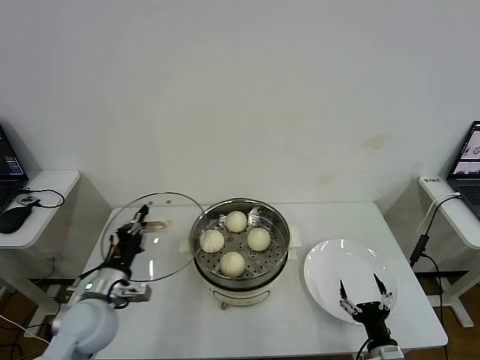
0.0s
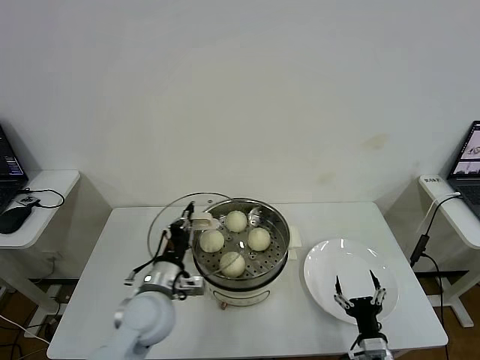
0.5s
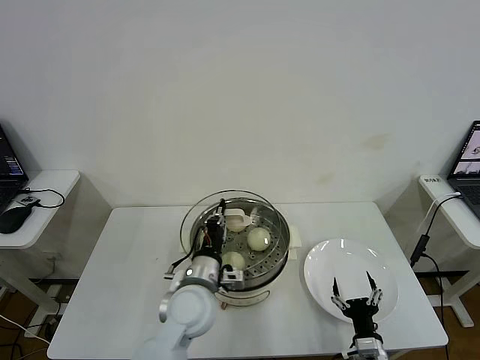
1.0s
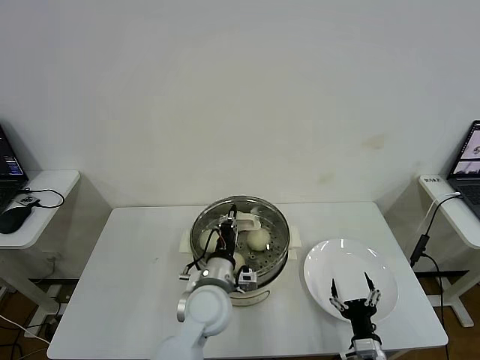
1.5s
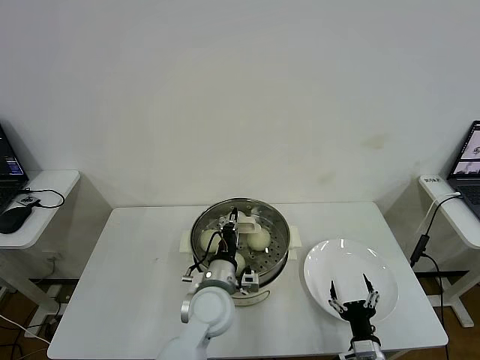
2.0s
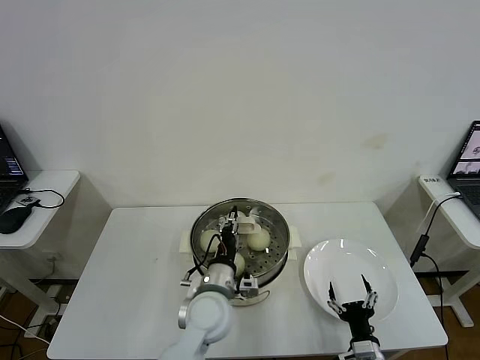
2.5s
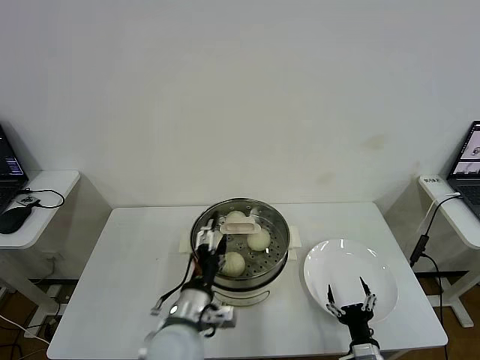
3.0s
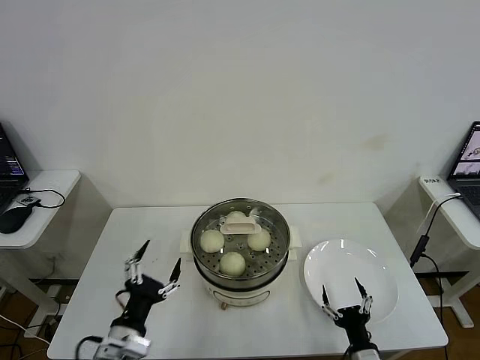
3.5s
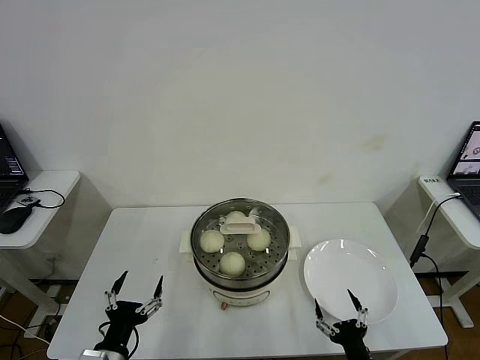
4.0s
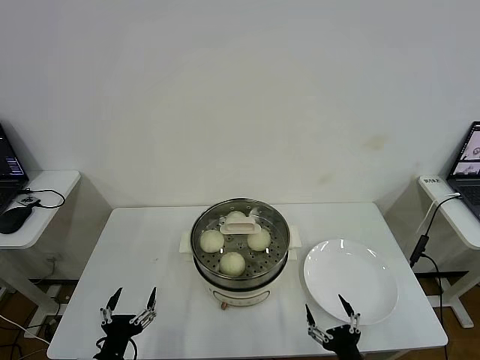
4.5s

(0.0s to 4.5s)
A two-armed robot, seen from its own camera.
Step, 0.0s - 2.5s: Place the baozi on the steamer with right gripper.
0.0s - 2.0s: The left gripper is displaced to the right by roughly 25 cm.
2.0s - 4.5s: The left gripper shifts about 30 cm to the left and backward, and opens up. Meanwhile the right gripper heads backward, covering roughly 5 cm.

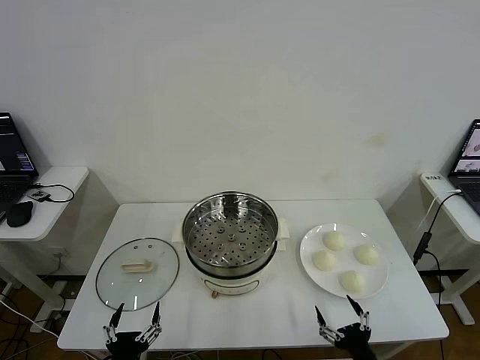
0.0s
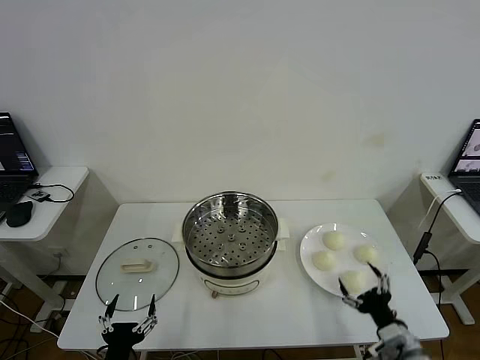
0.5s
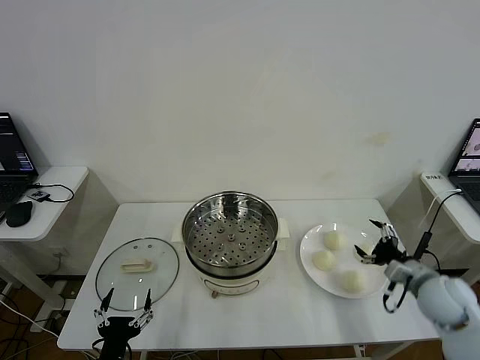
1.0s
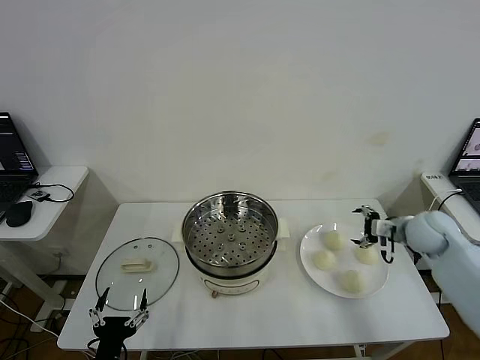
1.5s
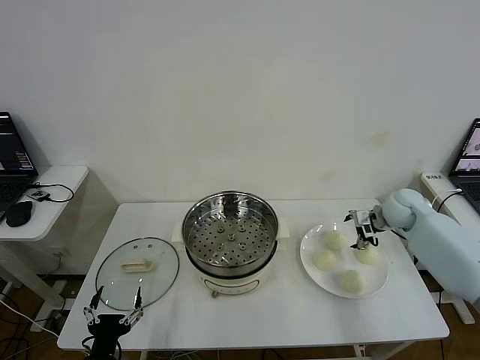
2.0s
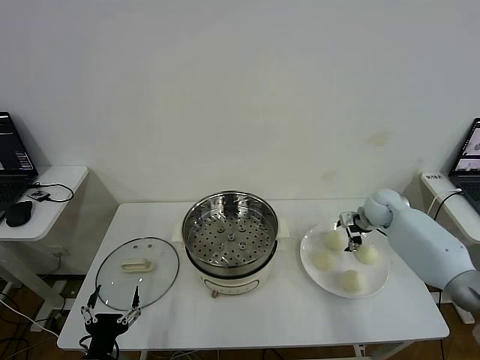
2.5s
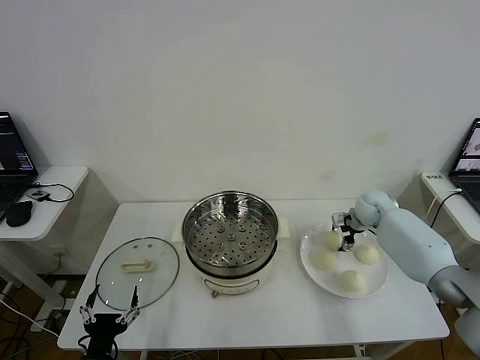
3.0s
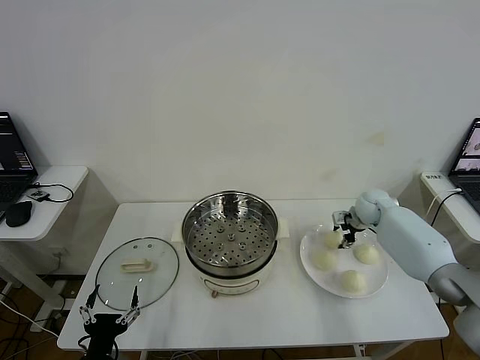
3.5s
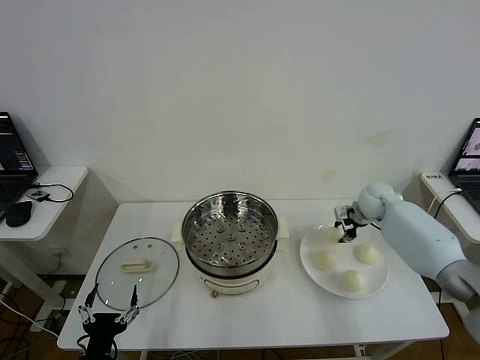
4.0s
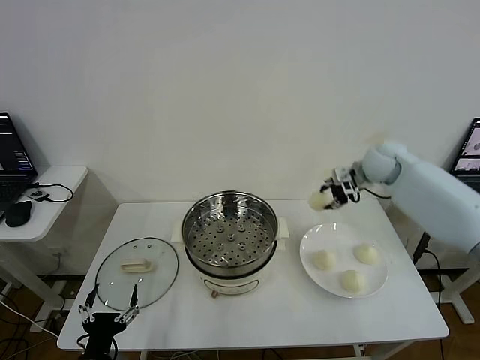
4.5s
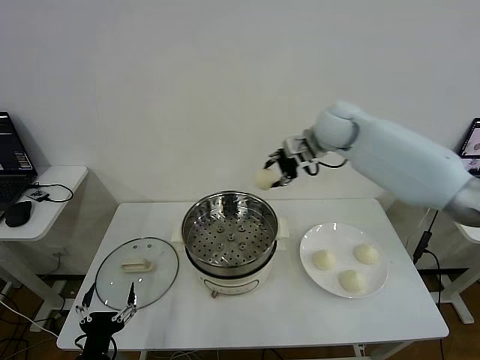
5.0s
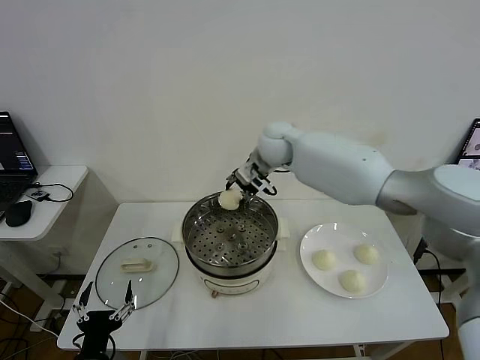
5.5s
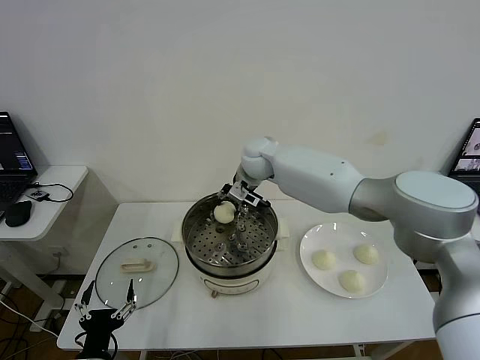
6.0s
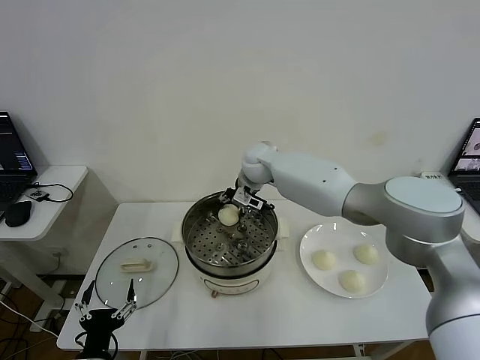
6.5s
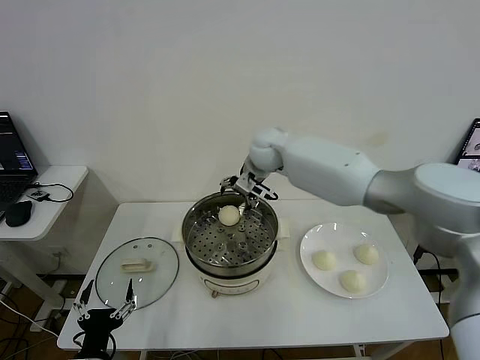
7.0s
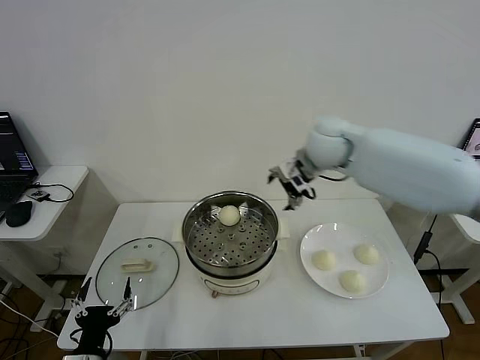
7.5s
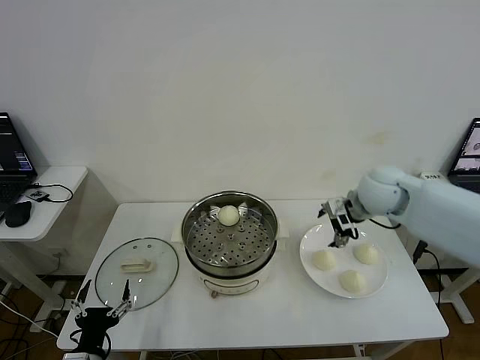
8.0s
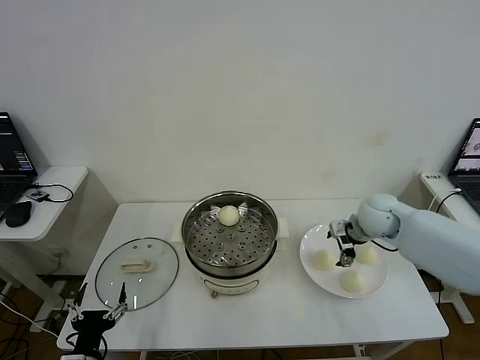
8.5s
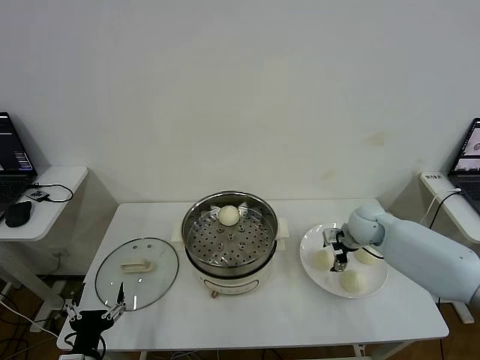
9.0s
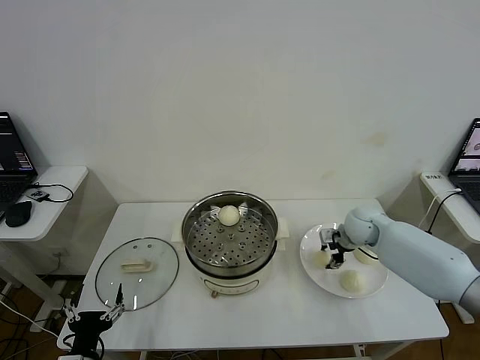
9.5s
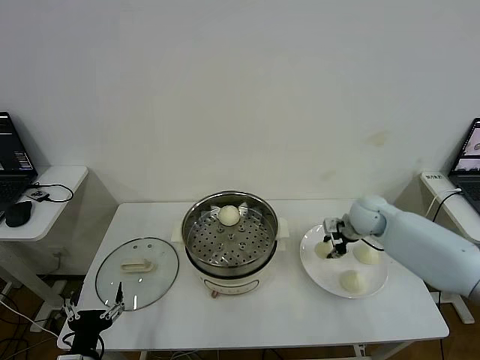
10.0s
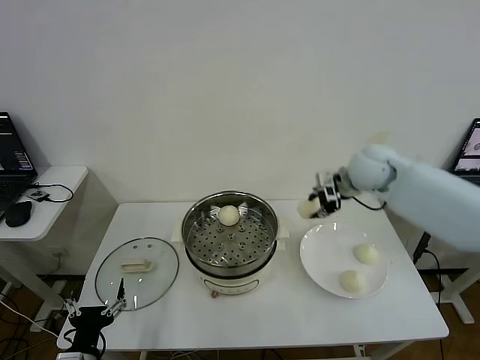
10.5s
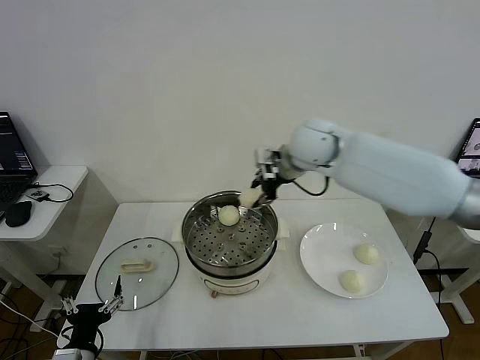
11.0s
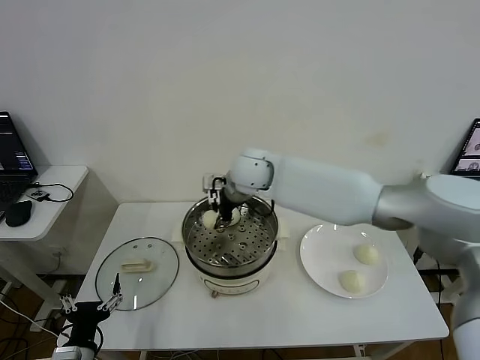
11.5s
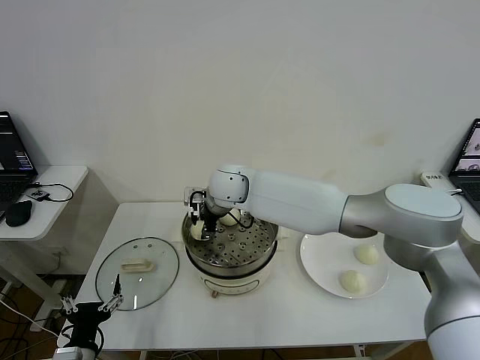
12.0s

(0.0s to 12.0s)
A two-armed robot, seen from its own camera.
Step, 0.0s - 3.5s: Grasp the baozi in the plate with right gripper.
Step, 4.0s - 6.5s: Place the baozi on the steamer with right gripper.
Step, 7.0s - 9.5s: Grasp the baozi in the plate with right gripper.
2.0s - 4.0s: The right gripper changes place by about 5 cm, and closes.
4.0s - 6.0s: The right gripper shifts approximately 30 cm to the left.
6.0s - 8.0s: The right gripper shifts roughly 30 cm to the right and backward, and opens up.
8.0s - 10.0s: The right gripper shifts approximately 10 cm downward, and closes.
10.0s - 12.0s: The right gripper travels to the left by approximately 35 cm.

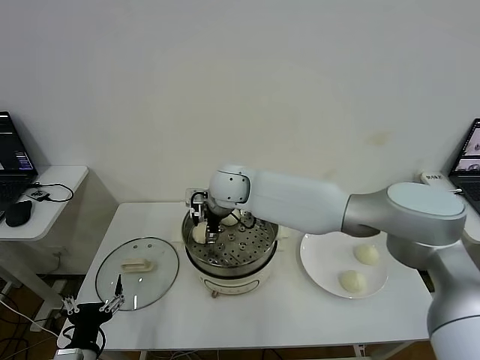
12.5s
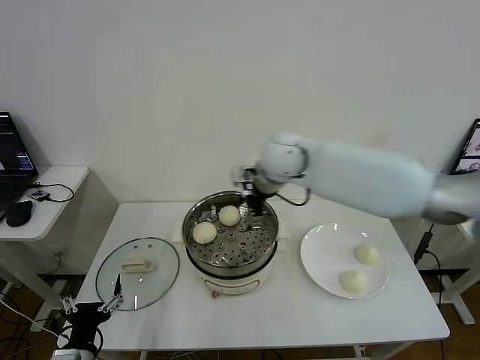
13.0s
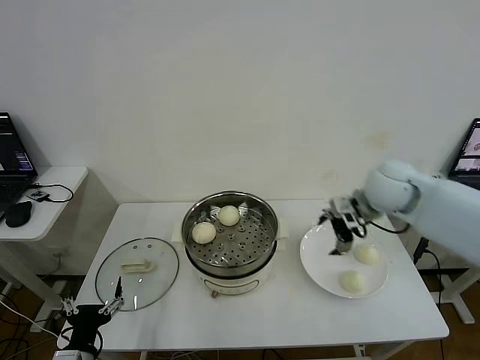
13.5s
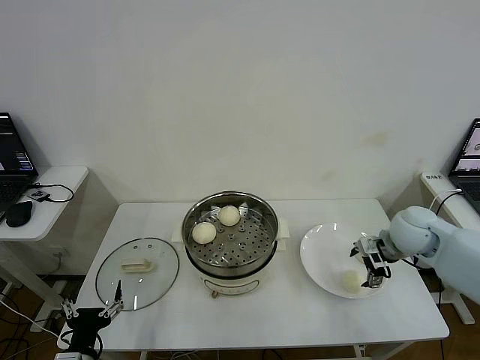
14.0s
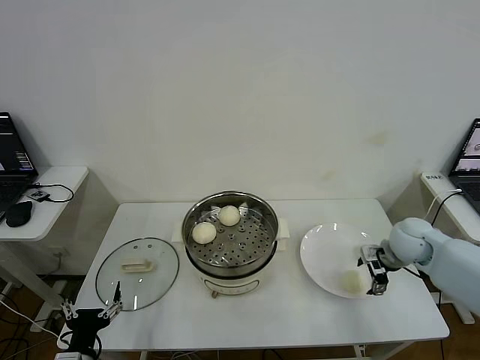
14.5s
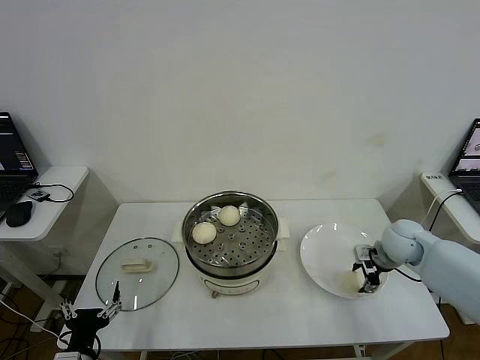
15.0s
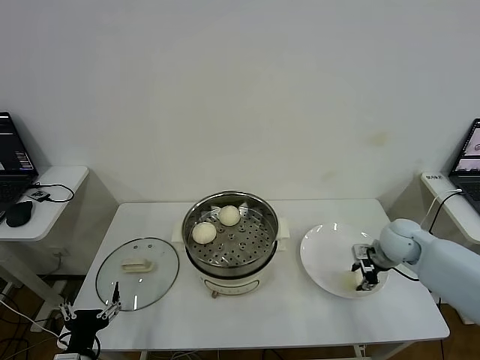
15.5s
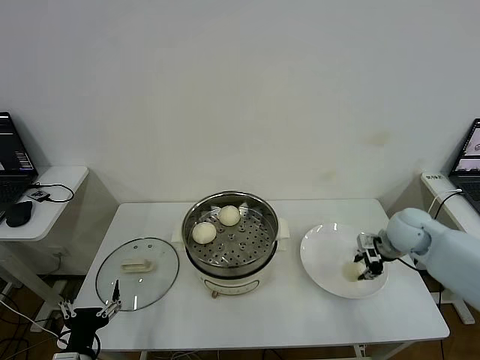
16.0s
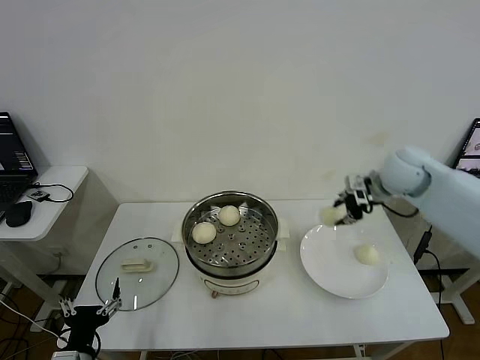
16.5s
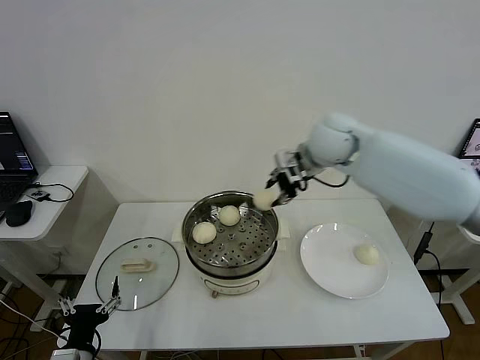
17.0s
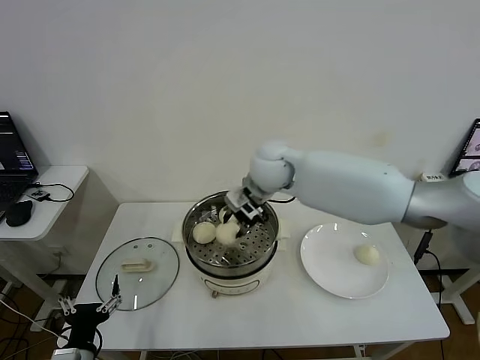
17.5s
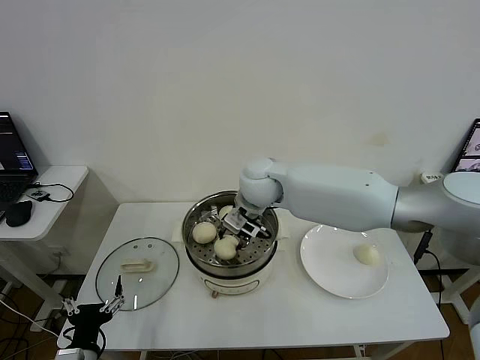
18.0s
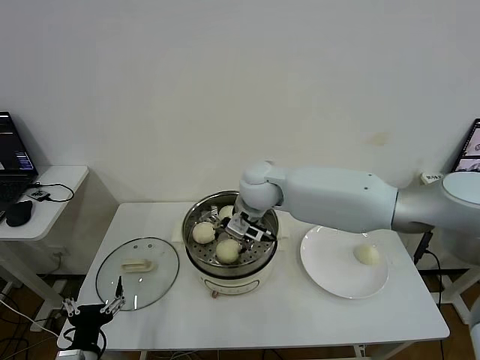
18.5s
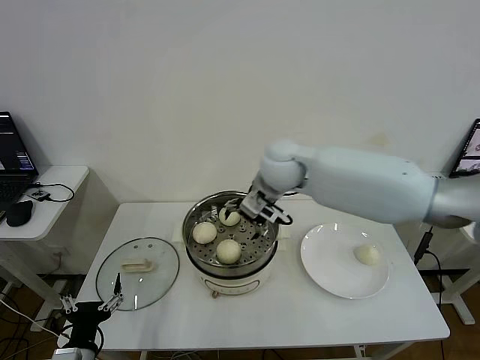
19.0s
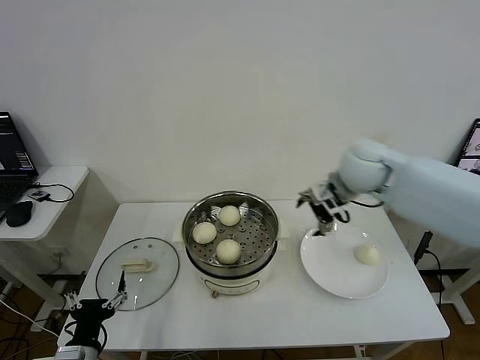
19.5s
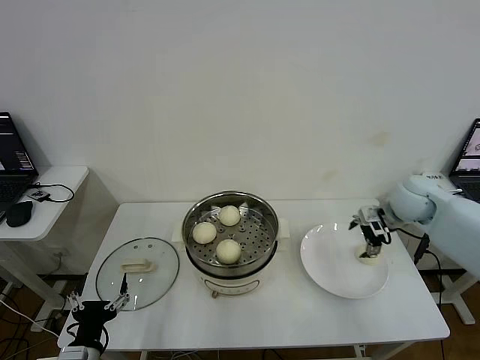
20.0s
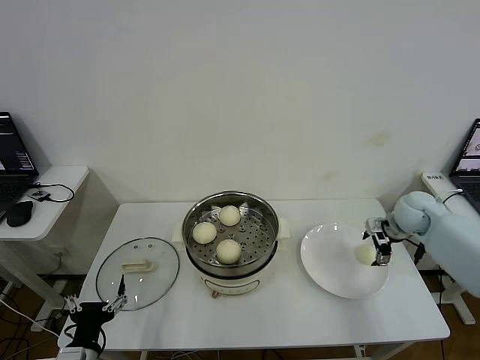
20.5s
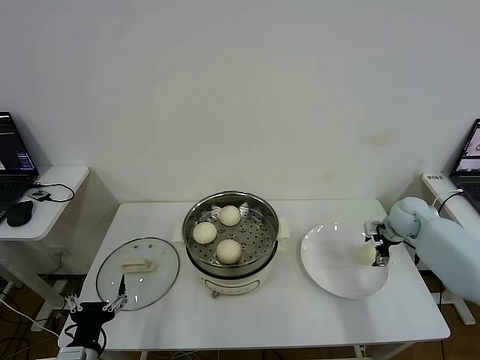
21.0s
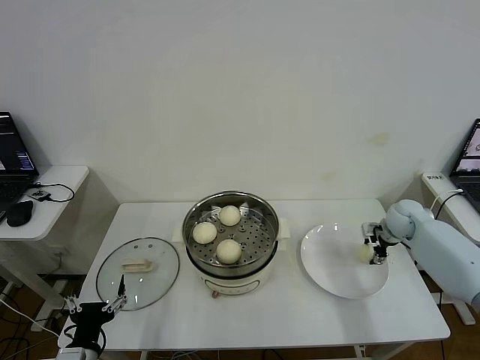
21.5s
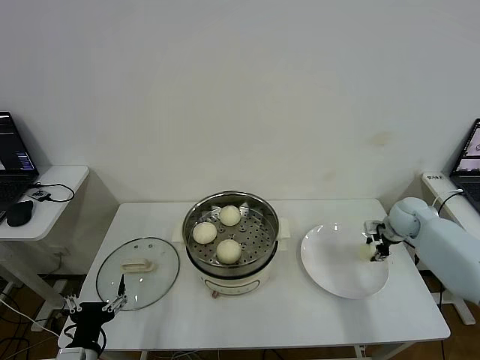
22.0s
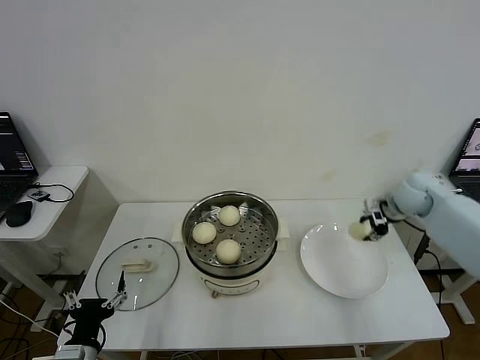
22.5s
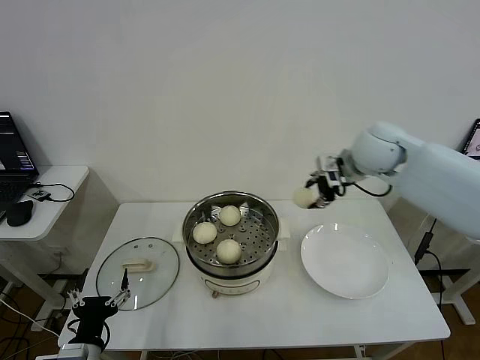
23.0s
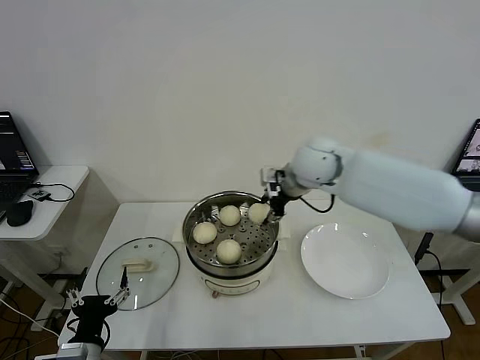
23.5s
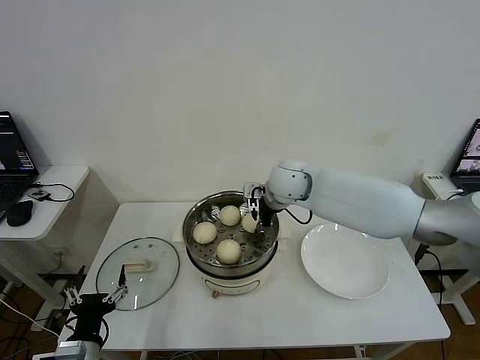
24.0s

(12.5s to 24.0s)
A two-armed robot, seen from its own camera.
Step, 13.0s - 15.5s: Grasp the baozi in the plate with right gripper.
Step, 16.0s - 18.5s: Place the baozi on the steamer with right gripper.
Step, 19.0s - 21.5s: Grasp the baozi in the plate with right gripper.
12.5s - 14.5s: The right gripper is displaced to the right by about 40 cm.
14.5s - 16.5s: The right gripper is displaced upward and forward by roughly 20 cm, and closes.
16.5s - 18.5s: The right gripper heads to the left, covering some 30 cm, and opens up.
18.5s - 20.0s: The right gripper shifts roughly 35 cm to the right.
20.0s - 22.0s: The right gripper shifts about 10 cm downward and to the right, and closes.
22.0s - 24.0s: The right gripper is displaced to the left by about 35 cm.
